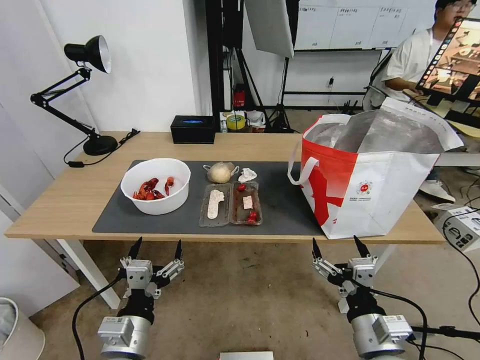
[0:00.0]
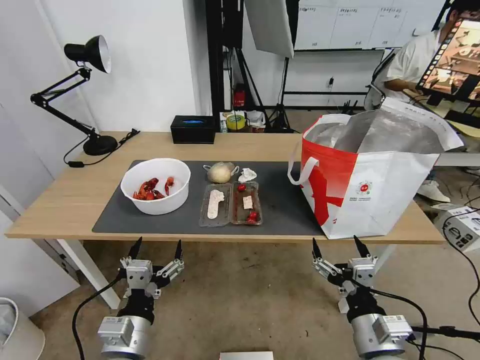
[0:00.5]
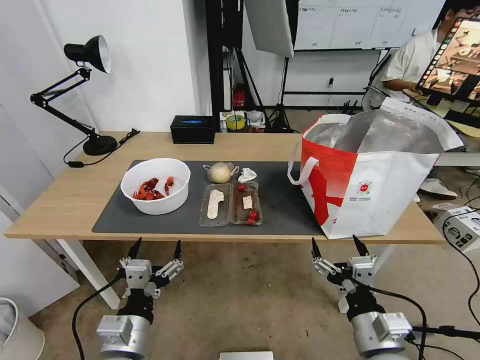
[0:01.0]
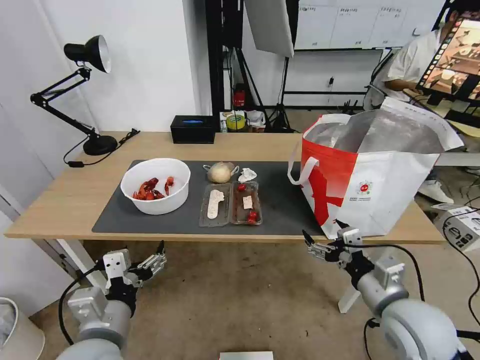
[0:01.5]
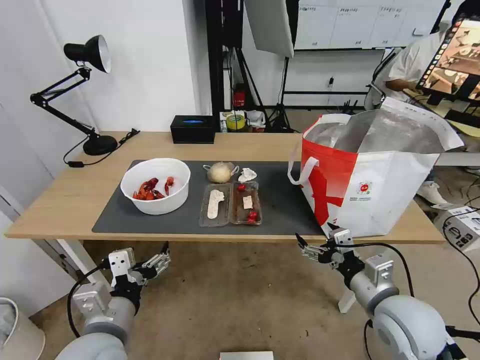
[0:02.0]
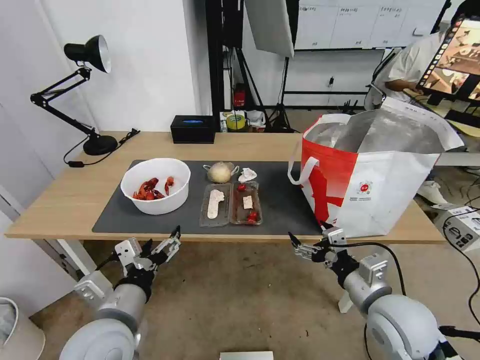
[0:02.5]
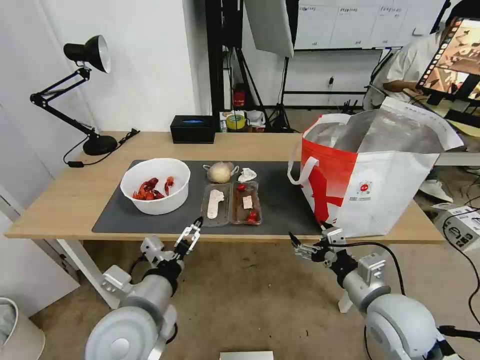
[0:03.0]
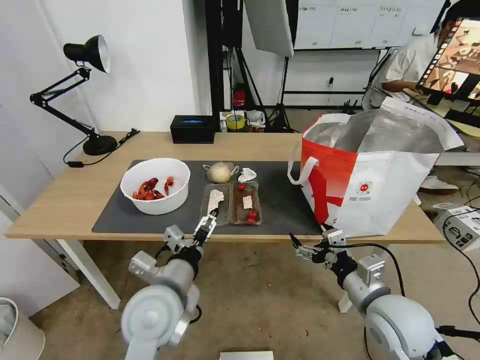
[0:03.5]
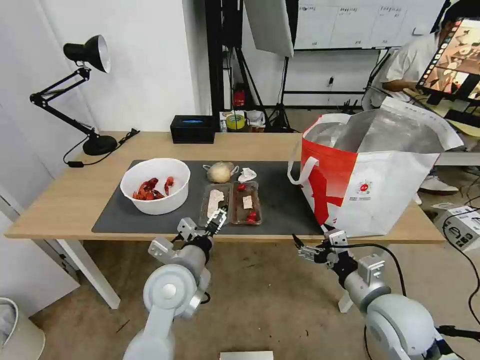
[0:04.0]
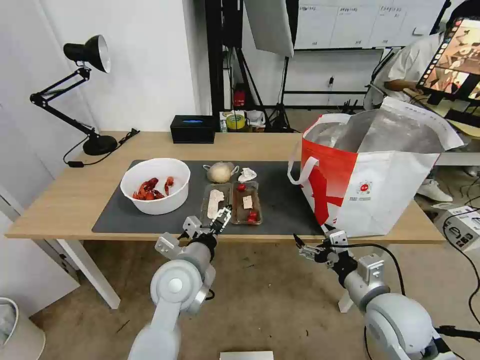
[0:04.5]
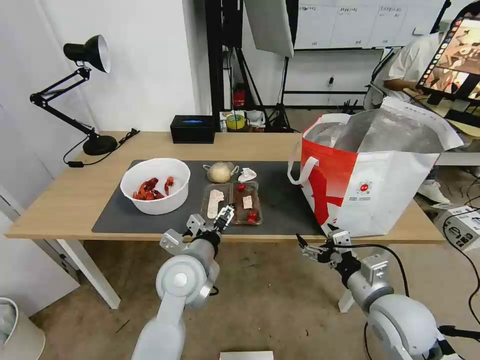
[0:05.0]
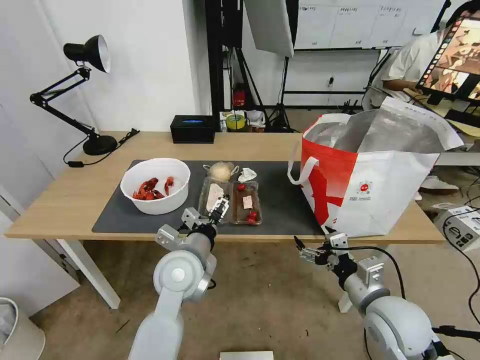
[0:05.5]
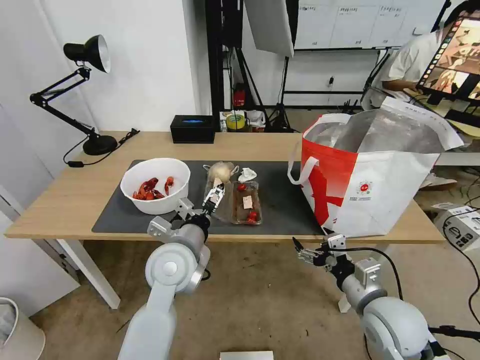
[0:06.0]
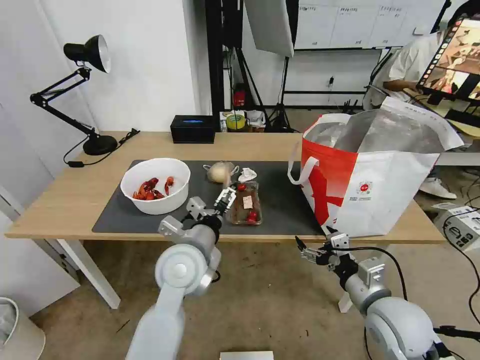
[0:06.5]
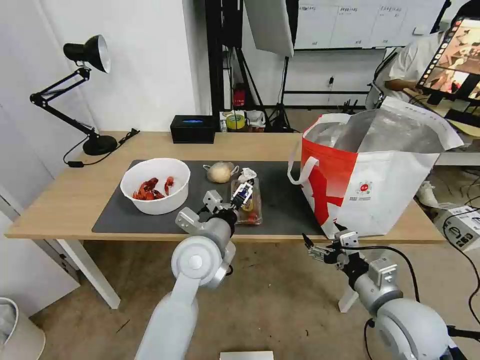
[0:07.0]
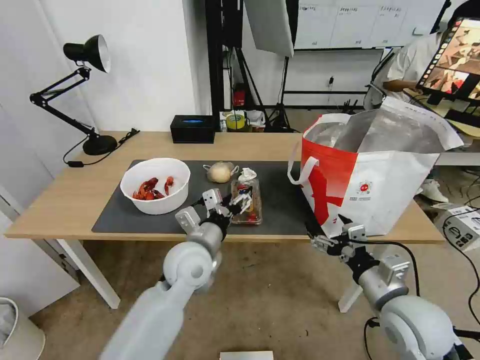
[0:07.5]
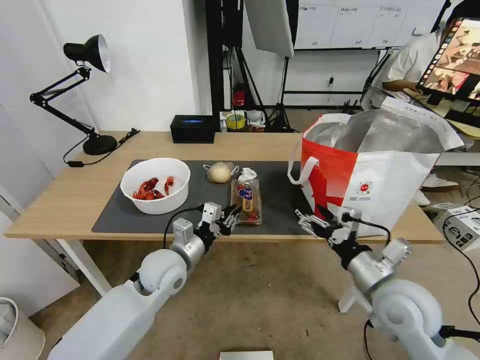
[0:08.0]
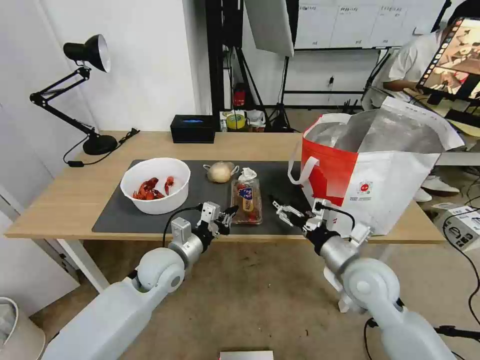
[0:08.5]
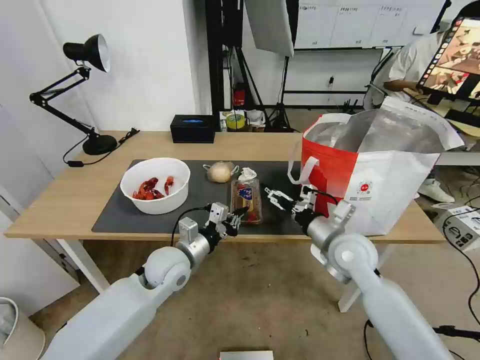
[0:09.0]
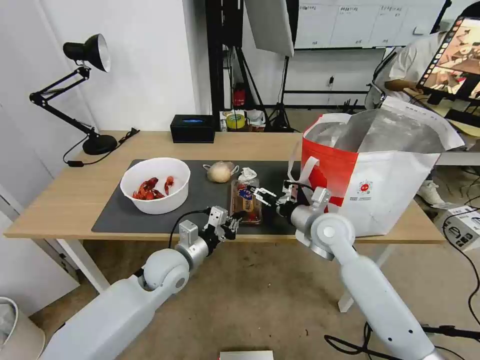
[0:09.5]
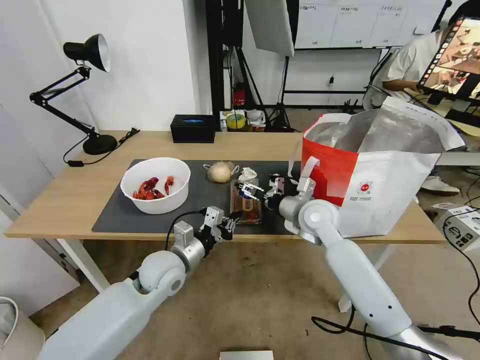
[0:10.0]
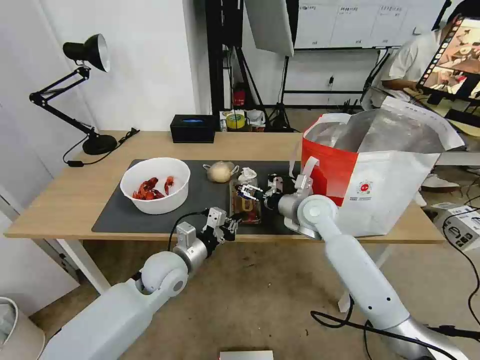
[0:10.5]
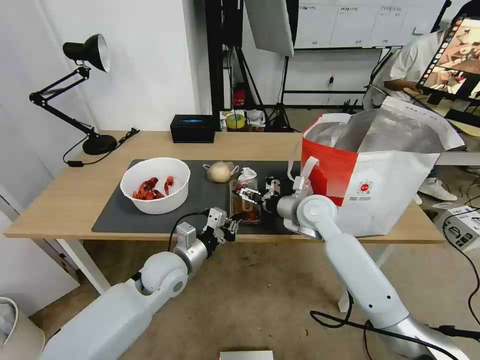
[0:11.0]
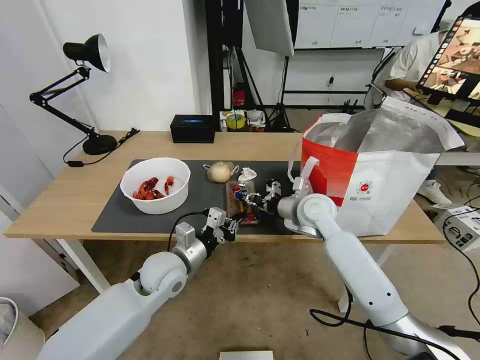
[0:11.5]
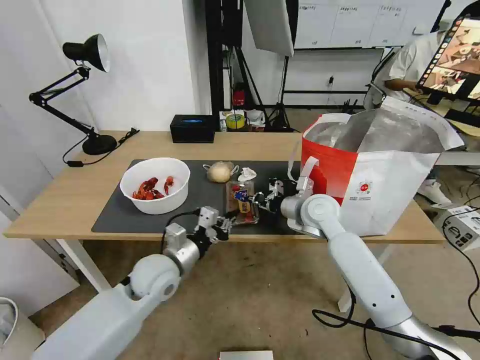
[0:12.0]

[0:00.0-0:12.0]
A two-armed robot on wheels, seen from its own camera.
Task of the whole recording: Pick up the trash from the table and place it into the takeout bag.
0:02.0 to 0:04.0: The left gripper heads forward and to the right, covering approximately 15 cm.
0:04.0 to 0:06.0: The grippers move only a little.
0:06.0 to 0:08.0: The left gripper heads downward, covering about 5 cm, and closes.
0:08.0 to 0:10.0: The right gripper moves forward and to the left, roughly 20 cm.
0:10.0 to 0:12.0: The right gripper closes its fingers.

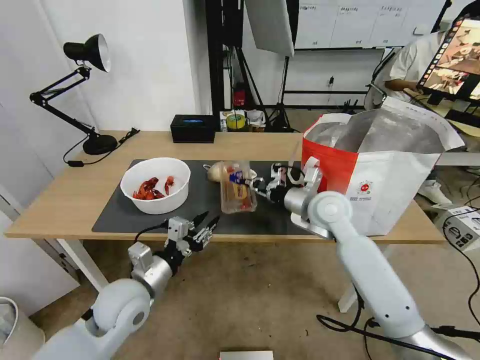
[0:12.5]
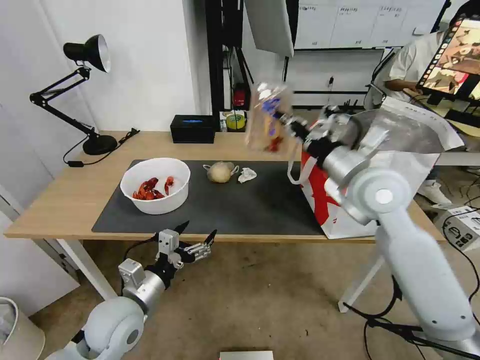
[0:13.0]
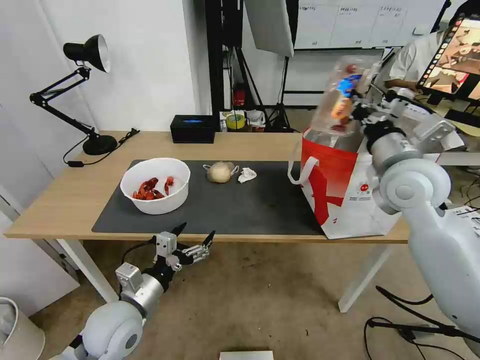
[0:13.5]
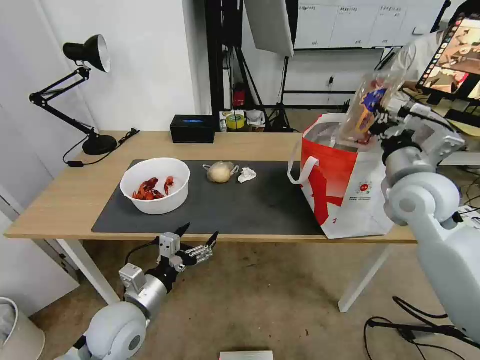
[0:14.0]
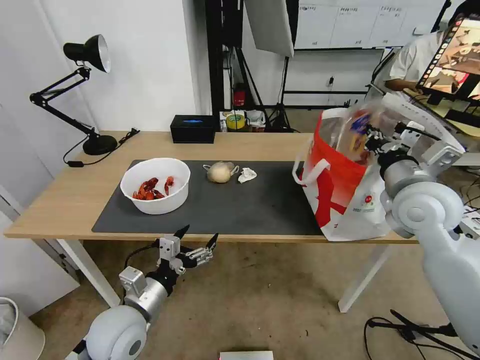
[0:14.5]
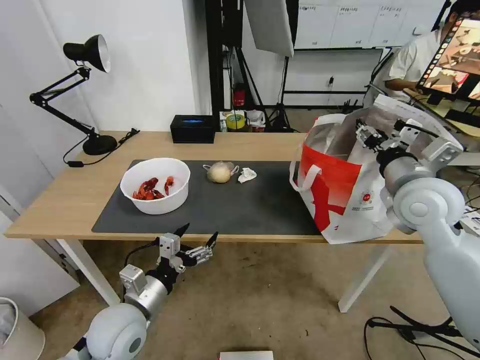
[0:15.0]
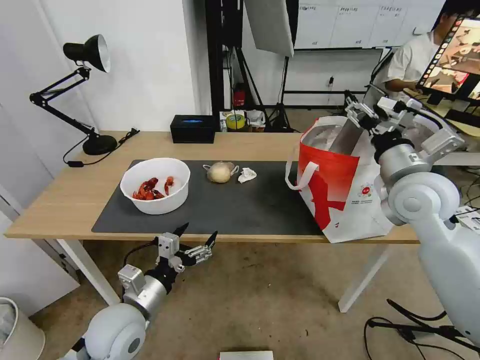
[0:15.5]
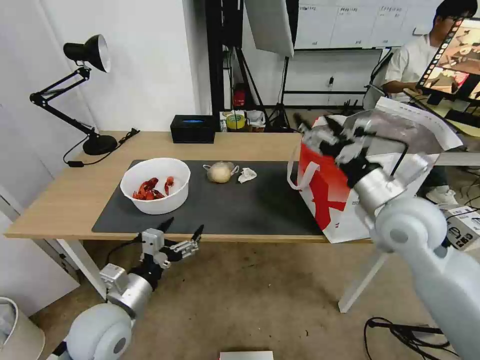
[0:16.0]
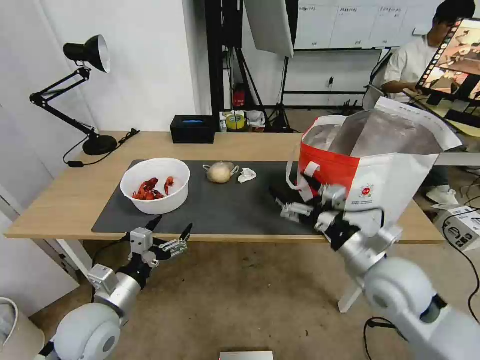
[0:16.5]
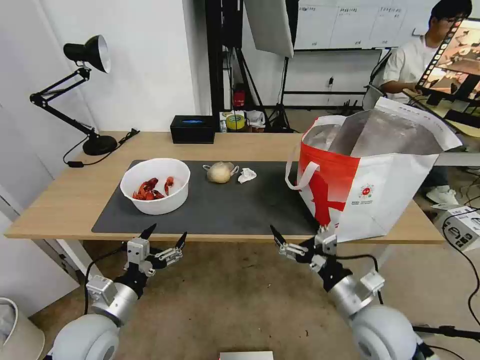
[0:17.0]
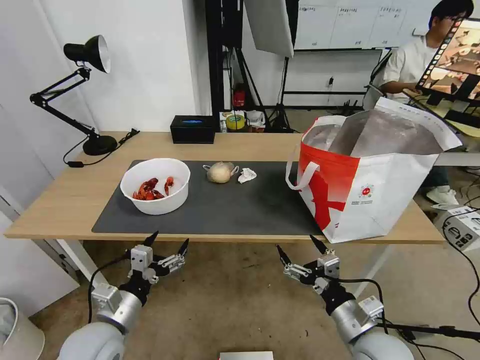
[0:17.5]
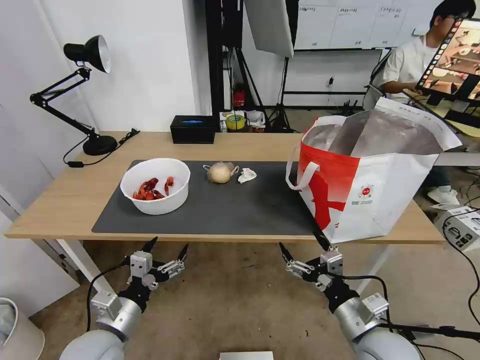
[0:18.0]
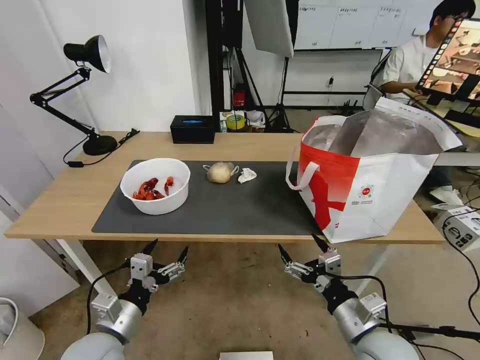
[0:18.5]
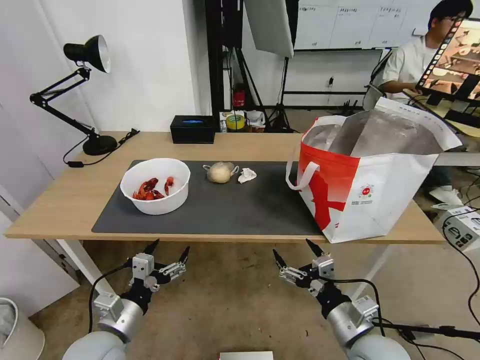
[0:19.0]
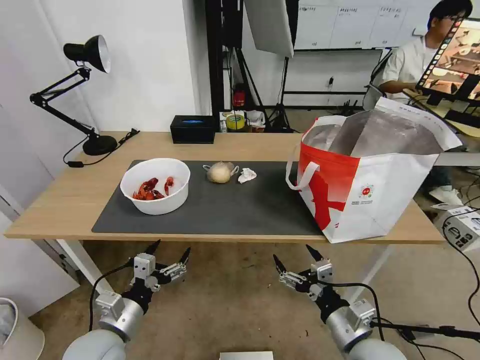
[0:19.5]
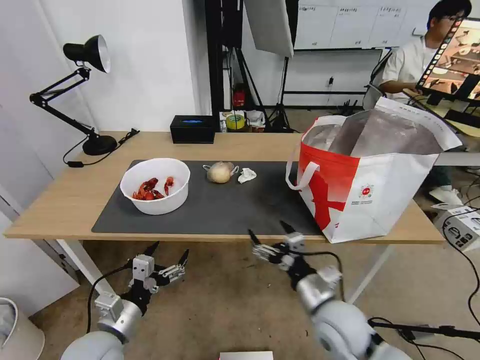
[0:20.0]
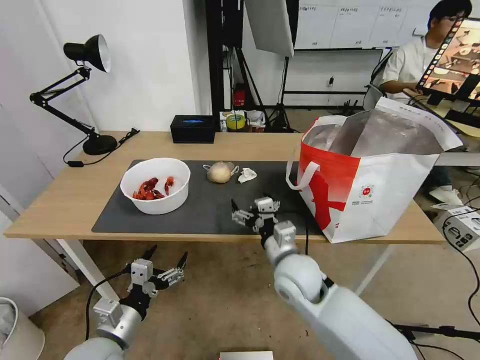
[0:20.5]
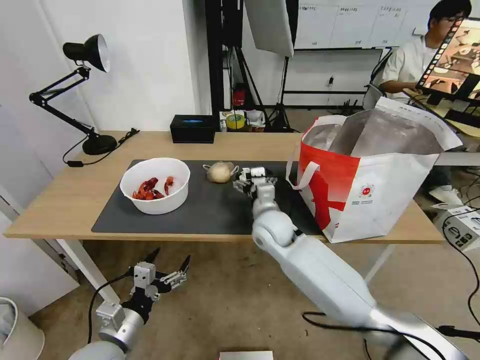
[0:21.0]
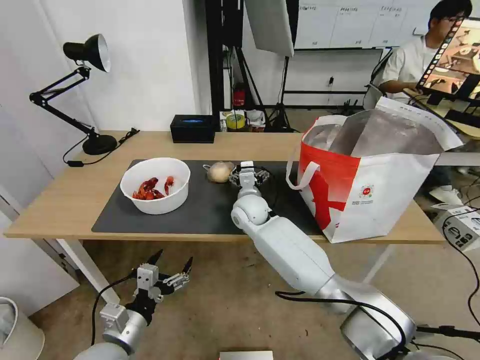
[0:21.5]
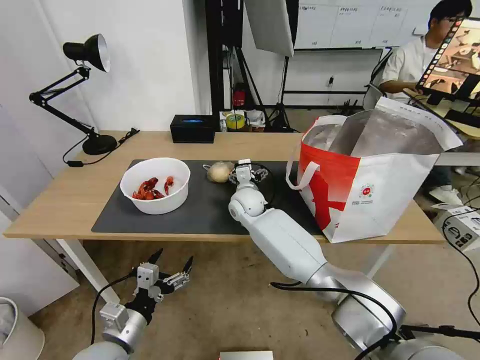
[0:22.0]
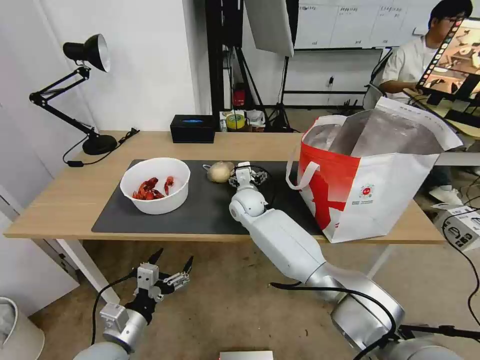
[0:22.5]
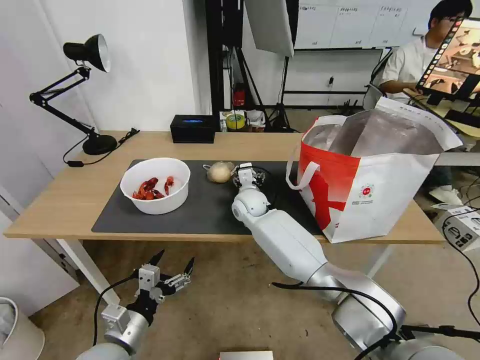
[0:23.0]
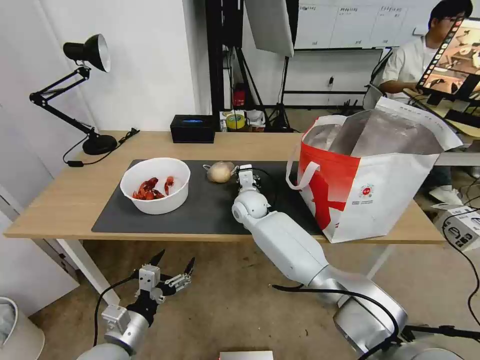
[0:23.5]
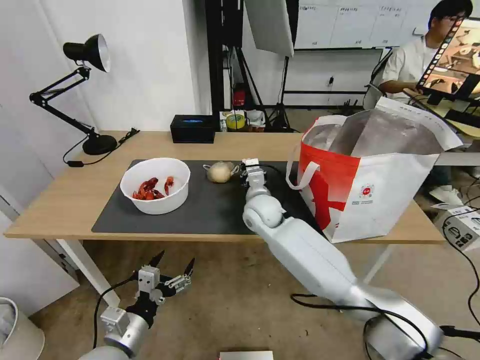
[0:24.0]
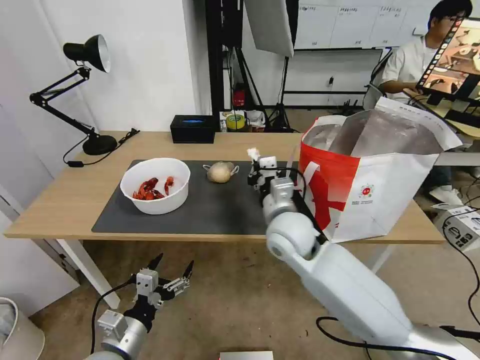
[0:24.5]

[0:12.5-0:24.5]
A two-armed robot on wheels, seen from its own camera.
Task of the whole recording: Pick up the trash from the table and place it into the takeout bag.
0:12.5 to 0:14.5: The right gripper heads to the right, upward and backward, covering some 15 cm; the left gripper opens its fingers.
0:14.5 to 0:16.5: The right gripper moves downward, backward and to the left, some 15 cm, and opens.
0:16.5 to 0:18.5: The right gripper shifts roughly 15 cm downward and backward. Meanwhile the left gripper changes place by some 5 cm.
0:18.5 to 0:20.5: The right gripper goes roughly 20 cm forward and to the left.
0:20.5 to 0:22.5: The right gripper travels forward and to the left by some 25 cm.
0:22.5 to 0:24.5: The right gripper is displaced backward, upward and to the right by roughly 20 cm, and closes its fingers.

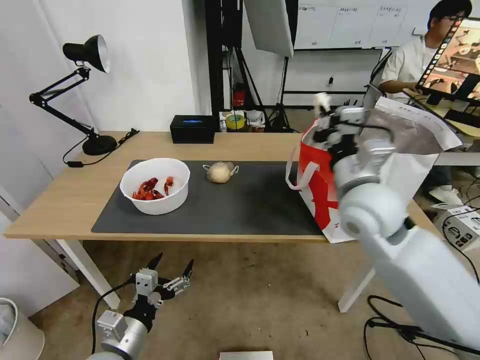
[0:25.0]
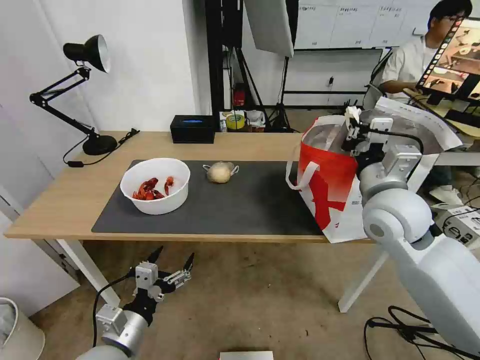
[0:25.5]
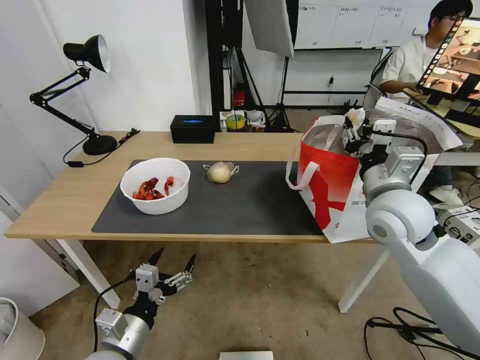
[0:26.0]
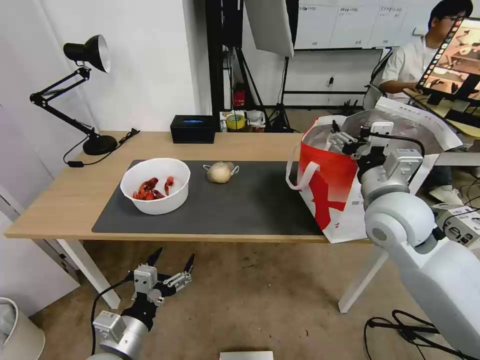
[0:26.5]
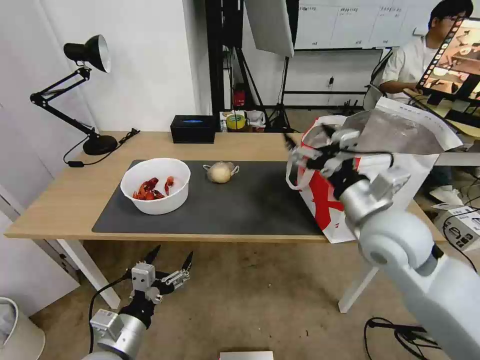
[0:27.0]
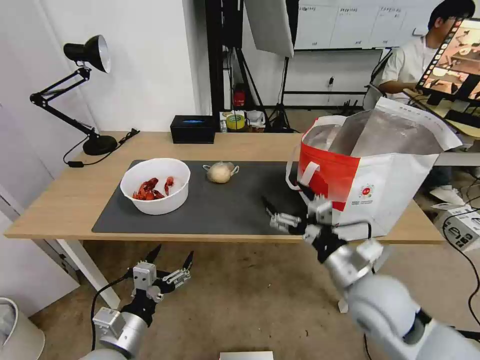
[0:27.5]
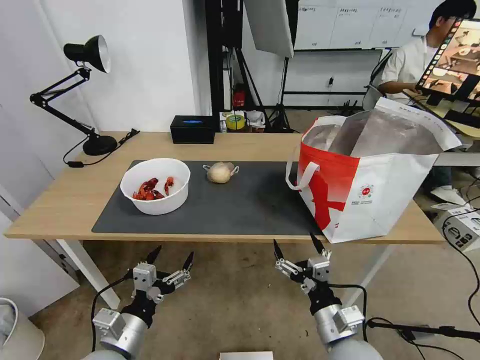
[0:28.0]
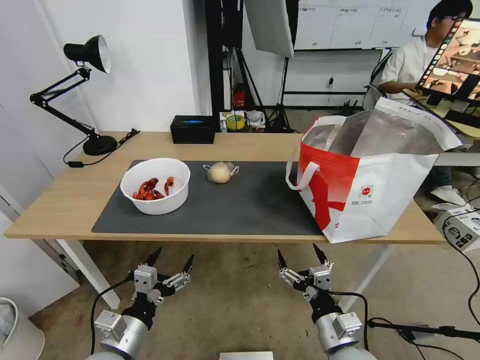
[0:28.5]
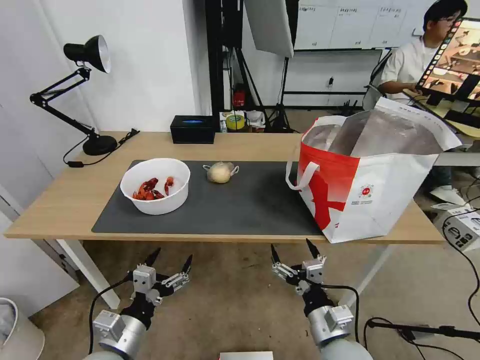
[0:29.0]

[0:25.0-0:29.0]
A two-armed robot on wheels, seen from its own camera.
Task of the whole recording: Pick up the trash from the table and place it into the takeout bag.
0:25.0 to 0:27.0: The right gripper moves roughly 5 cm, and opens up.
0:27.0 to 0:29.0: The right gripper heads downward and backward, covering some 25 cm.
